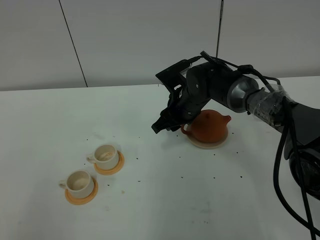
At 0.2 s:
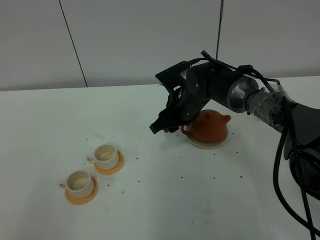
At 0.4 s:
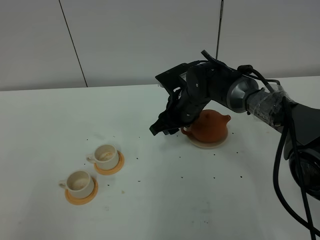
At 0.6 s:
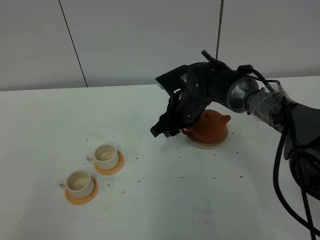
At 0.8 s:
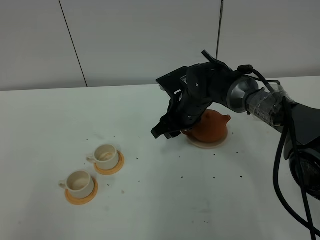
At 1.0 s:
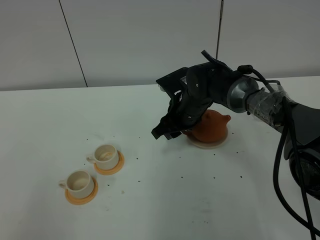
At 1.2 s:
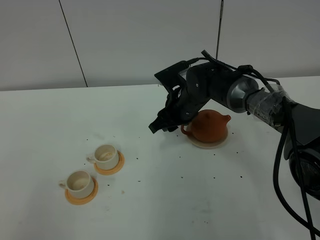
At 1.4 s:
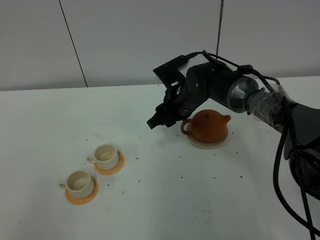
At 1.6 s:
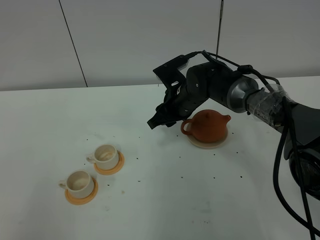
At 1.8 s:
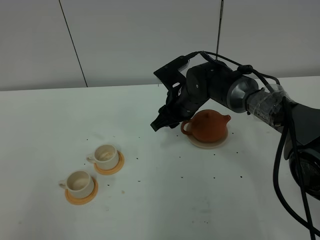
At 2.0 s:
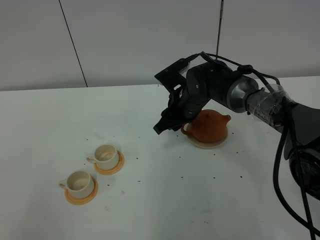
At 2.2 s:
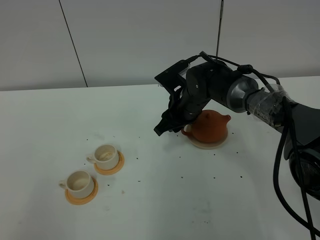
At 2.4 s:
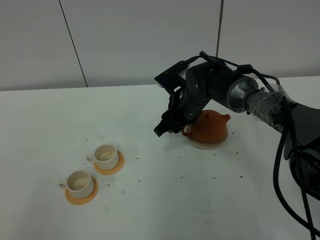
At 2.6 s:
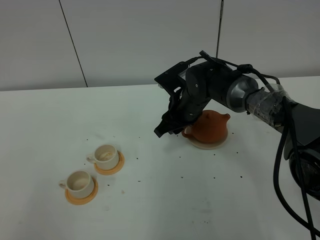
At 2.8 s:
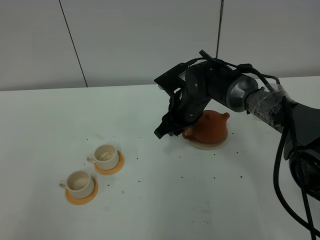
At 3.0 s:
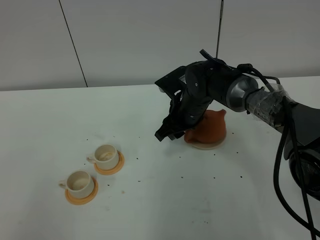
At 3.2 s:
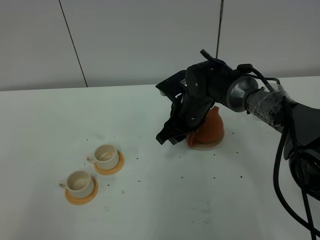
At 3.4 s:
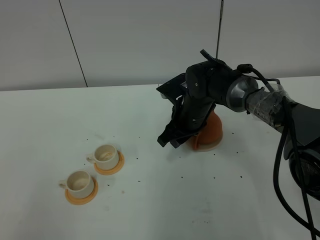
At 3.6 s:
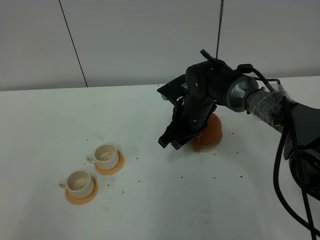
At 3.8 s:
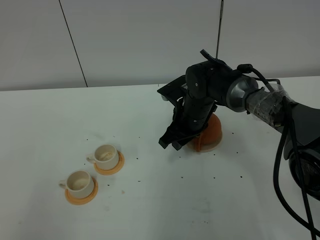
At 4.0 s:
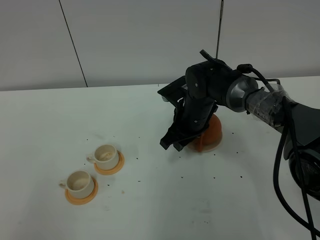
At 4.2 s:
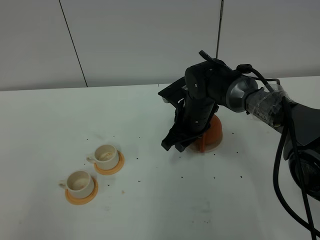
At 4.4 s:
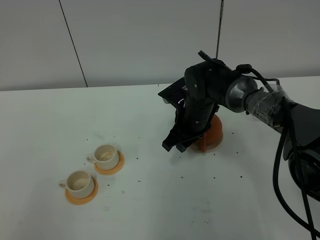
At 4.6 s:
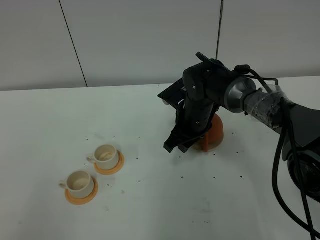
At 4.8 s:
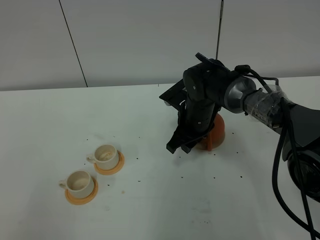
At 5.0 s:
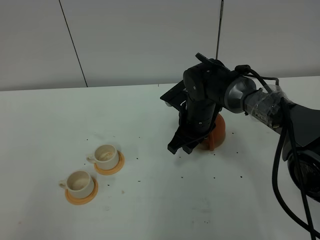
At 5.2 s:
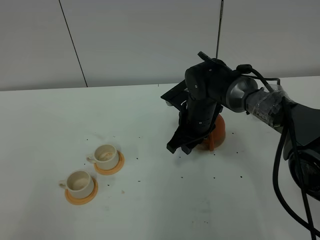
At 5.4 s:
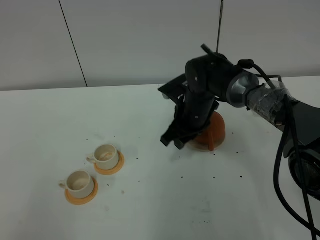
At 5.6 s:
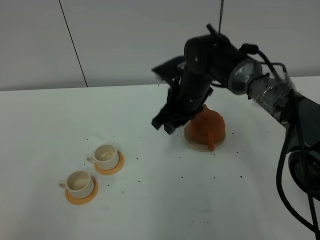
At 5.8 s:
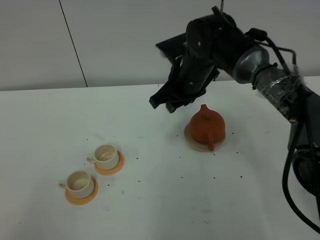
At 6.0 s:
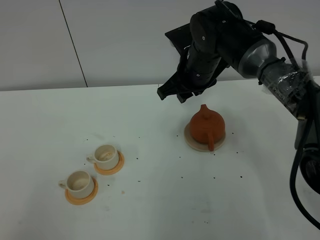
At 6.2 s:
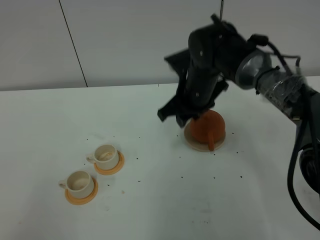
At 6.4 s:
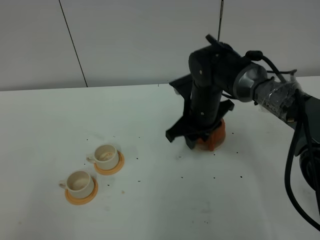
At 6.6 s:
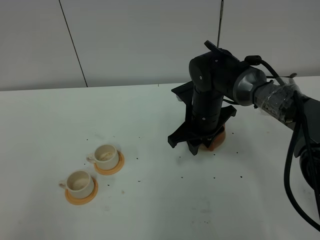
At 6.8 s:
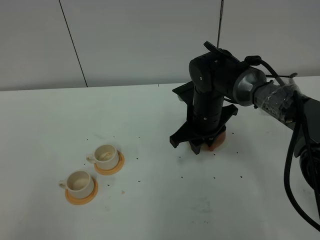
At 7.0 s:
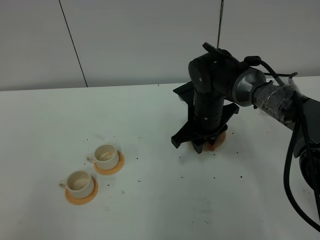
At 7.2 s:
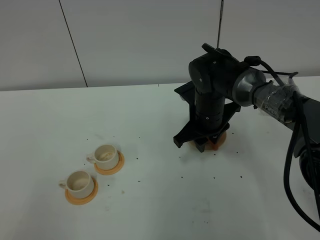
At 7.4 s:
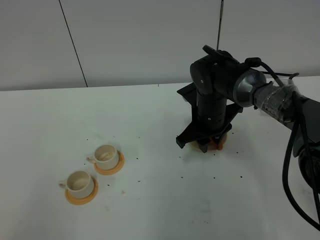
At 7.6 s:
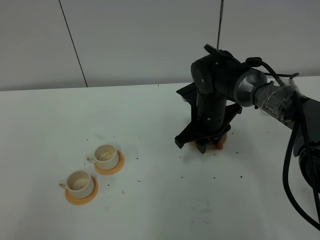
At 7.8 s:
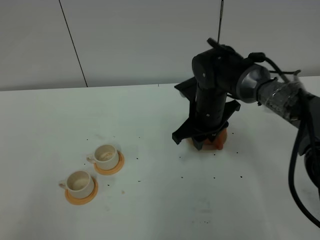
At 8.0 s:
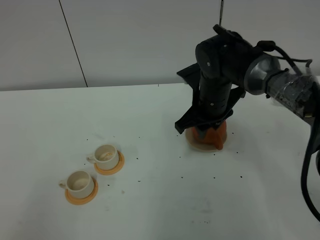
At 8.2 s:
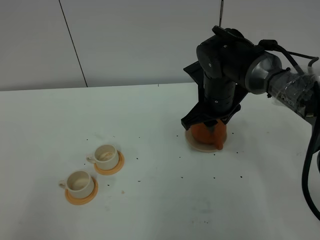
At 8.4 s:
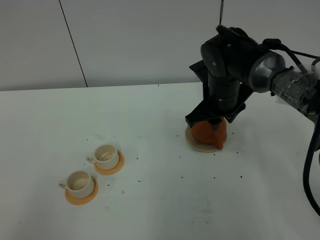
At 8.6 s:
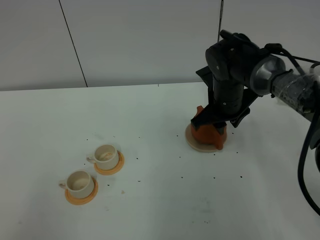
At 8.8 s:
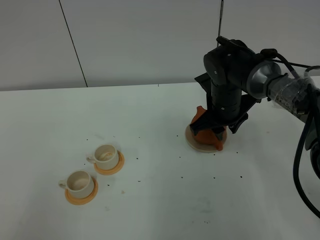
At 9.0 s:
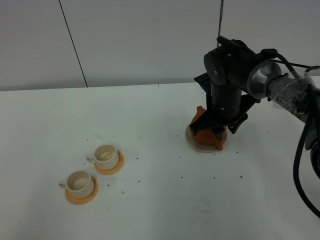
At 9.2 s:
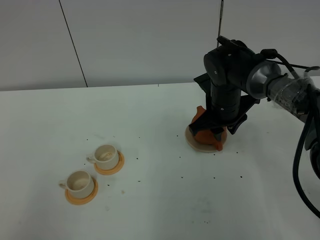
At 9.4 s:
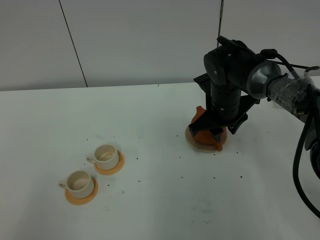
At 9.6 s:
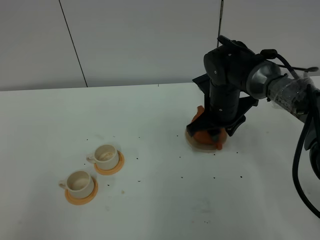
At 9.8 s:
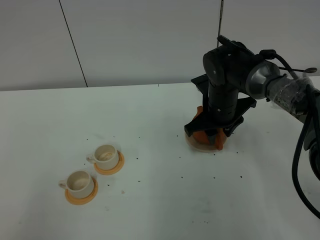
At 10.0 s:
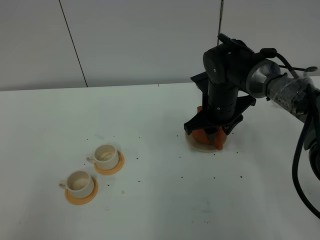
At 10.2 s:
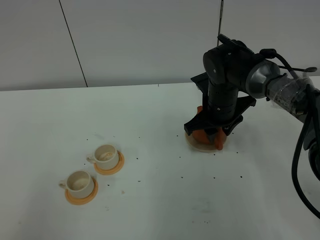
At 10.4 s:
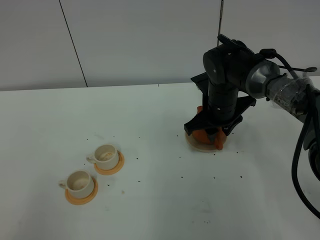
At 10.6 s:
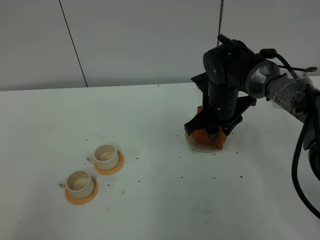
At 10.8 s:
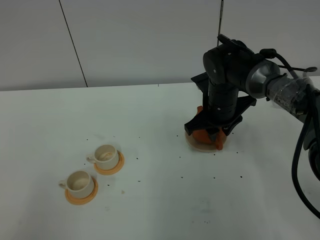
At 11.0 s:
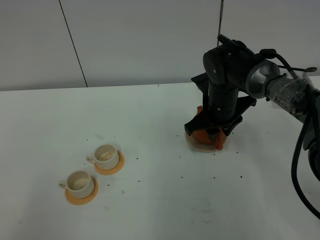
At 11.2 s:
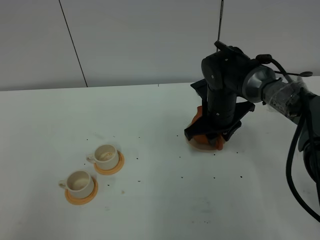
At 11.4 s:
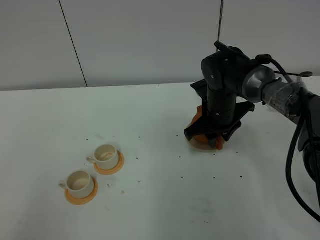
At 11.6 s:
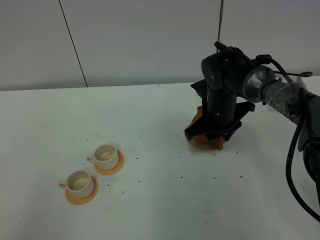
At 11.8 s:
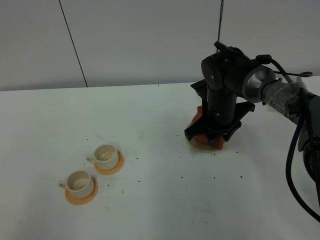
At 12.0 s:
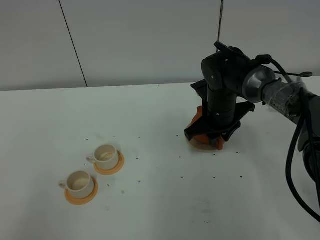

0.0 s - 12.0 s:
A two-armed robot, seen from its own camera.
Task of the whole recording: grasp the brown teapot and pour the tea into the two white teacups one by one, put the brown teapot back in its original place.
0.0 s - 4.4 s: The grippers make only small movements.
4.4 s - 6.0 s: The right gripper goes roughly 10 cm upward.
6.0 s - 7.6 s: The right gripper travels downward by roughly 10 cm.
7.6 s - 9.0 s: The grippers make only small movements.
9.0 s - 10.4 s: Neither gripper changes place.
10.4 s - 12.0 s: The grippers stay close to where they were, moving slightly.

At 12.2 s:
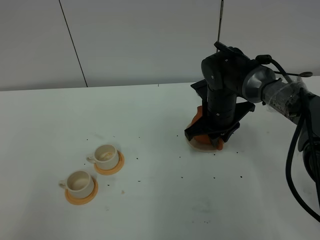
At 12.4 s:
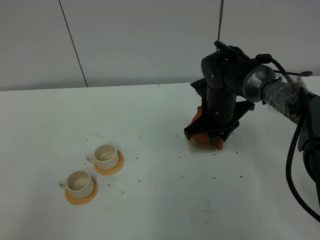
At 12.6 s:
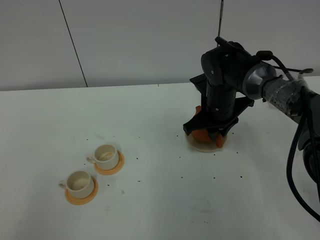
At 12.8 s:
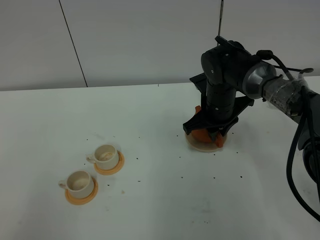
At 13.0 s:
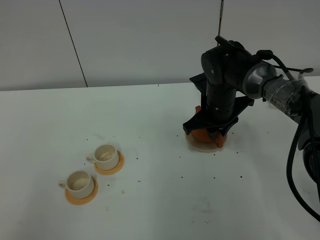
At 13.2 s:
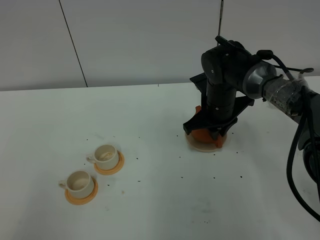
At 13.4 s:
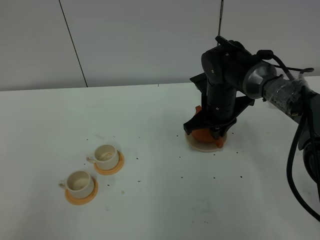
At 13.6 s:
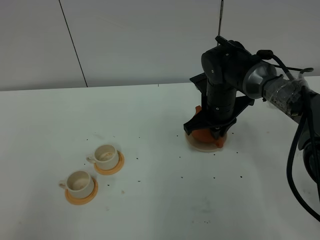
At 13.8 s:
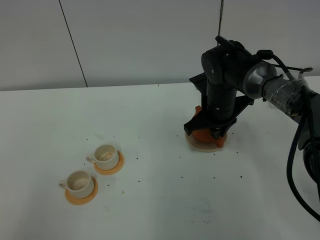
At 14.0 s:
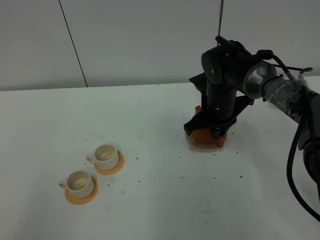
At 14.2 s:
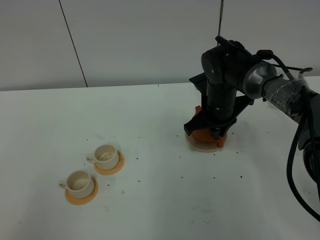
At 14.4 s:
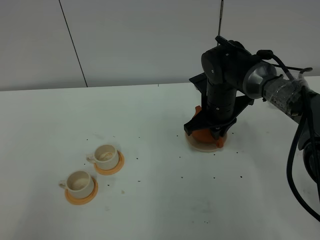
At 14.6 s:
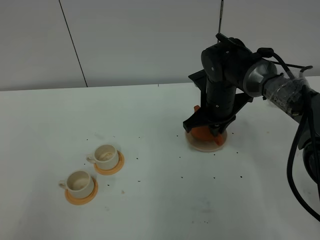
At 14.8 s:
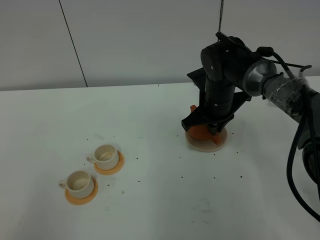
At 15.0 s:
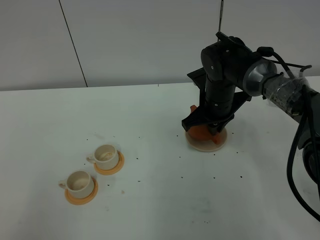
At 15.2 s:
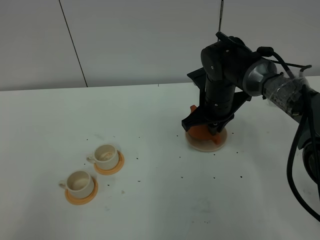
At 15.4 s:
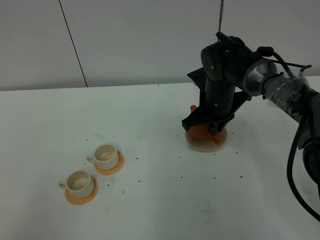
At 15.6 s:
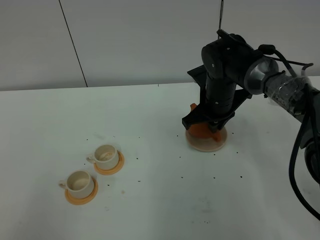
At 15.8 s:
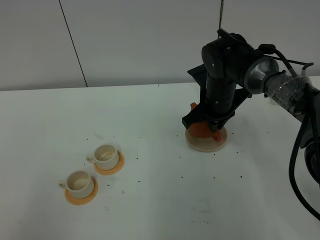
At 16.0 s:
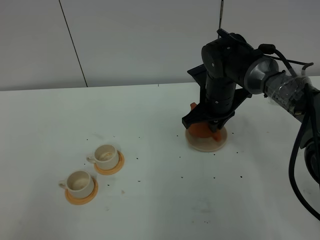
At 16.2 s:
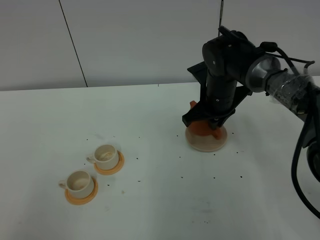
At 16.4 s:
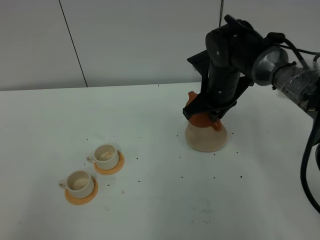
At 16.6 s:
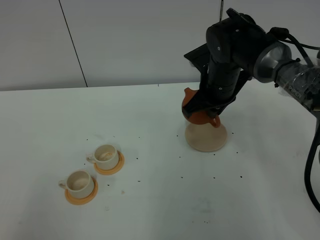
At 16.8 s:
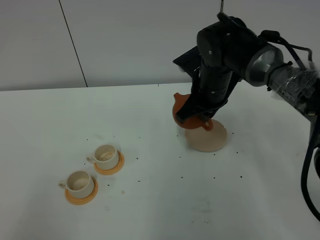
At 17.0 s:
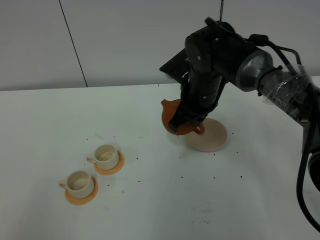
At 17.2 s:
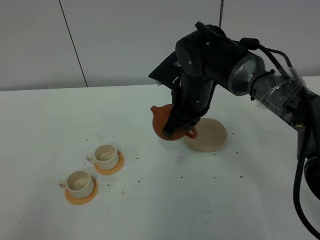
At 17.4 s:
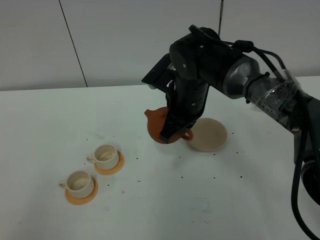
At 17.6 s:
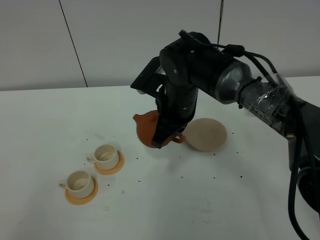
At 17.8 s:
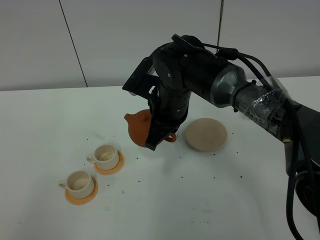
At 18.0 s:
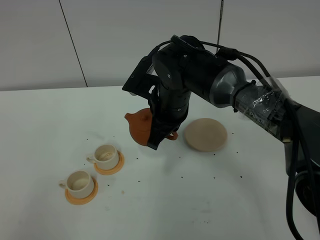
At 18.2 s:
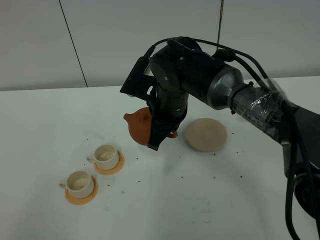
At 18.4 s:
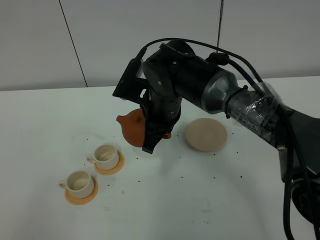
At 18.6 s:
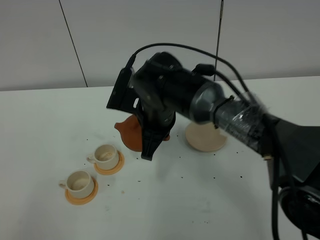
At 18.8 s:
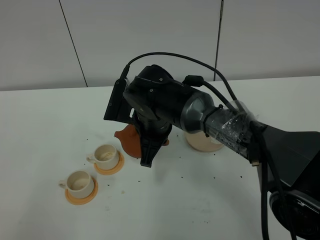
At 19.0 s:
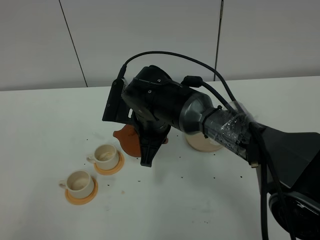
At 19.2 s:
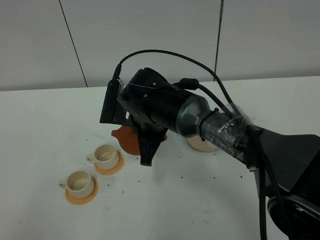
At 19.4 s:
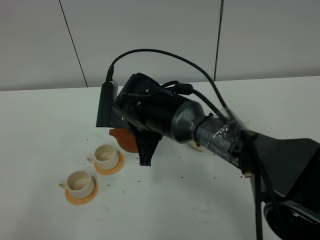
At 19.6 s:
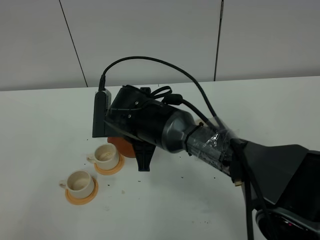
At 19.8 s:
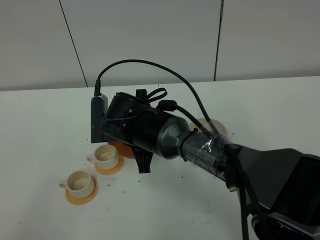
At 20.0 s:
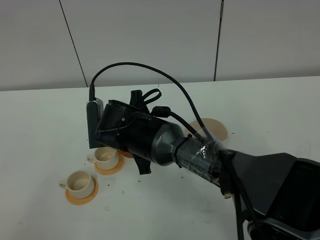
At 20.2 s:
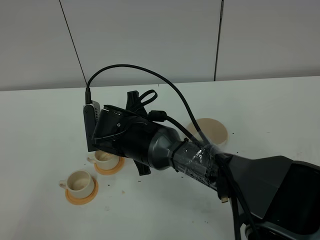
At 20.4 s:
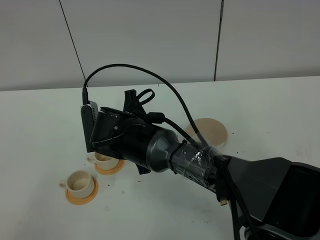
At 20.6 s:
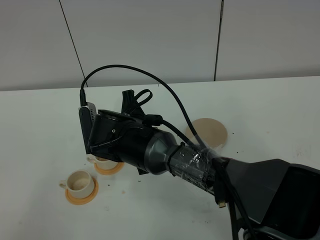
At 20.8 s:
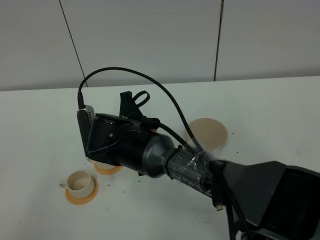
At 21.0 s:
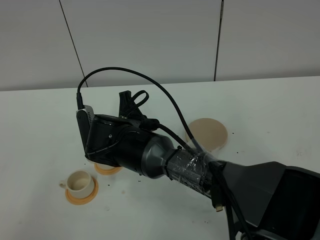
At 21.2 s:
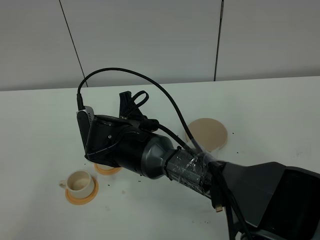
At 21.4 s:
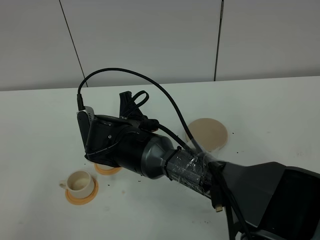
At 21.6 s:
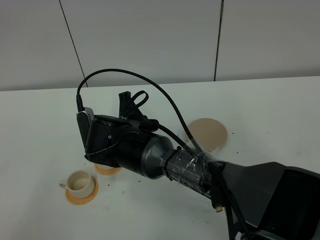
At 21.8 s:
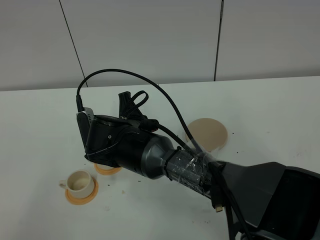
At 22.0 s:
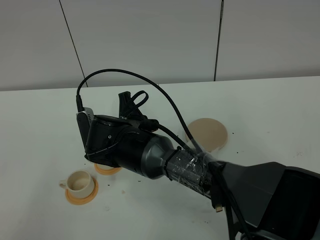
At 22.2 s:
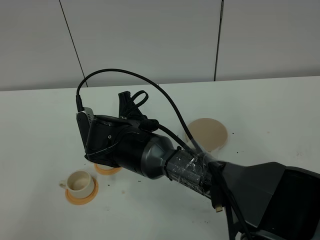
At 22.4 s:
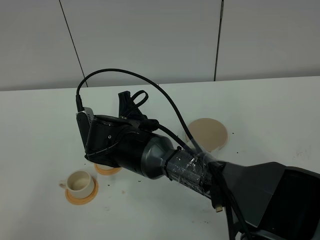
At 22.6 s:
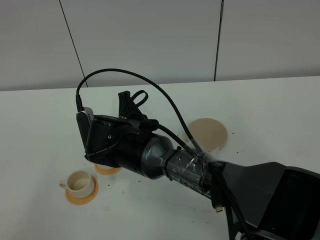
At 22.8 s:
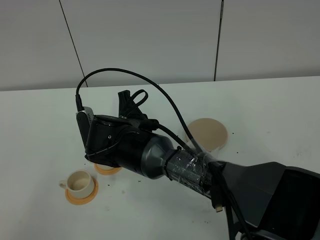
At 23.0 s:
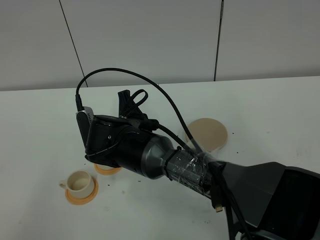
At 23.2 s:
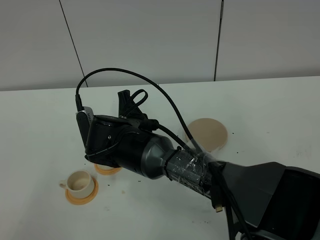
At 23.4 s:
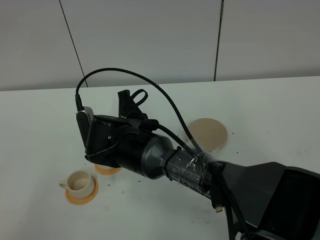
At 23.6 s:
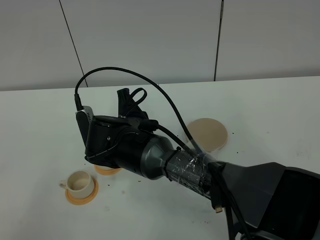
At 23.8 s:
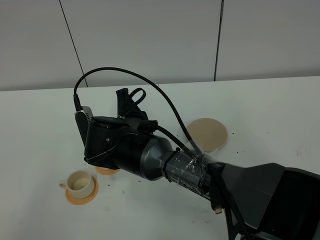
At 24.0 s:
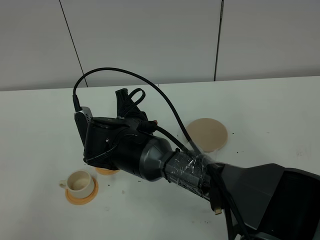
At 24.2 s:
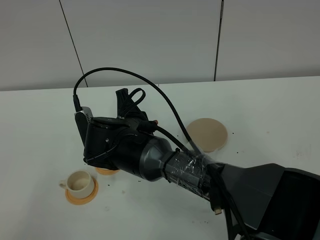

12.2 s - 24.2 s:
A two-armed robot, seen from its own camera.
Task of the whole recording: grasp the brown teapot and pour the tea into the two white teacups one by one, put the brown teapot back in its original place.
Step, 12.2 s - 16.2 s: Pick up the teapot with the right gripper.
12.2 s - 13.8 s: The right gripper closes up.
13.8 s - 15.2 s: Both grippers stay about where they are.
15.2 s - 16.6 s: The right gripper heads upward, covering roughly 5 cm.
16.6 s - 18.2 s: The right gripper heads to the left and backward, covering roughly 10 cm.
18.2 s - 19.8 s: The right gripper moves to the left, some 5 cm.
19.8 s - 21.2 s: The grippers make only small movements.
21.2 s - 22.6 s: Neither gripper changes place.
22.6 s - 24.2 s: The two grippers keep their place.
